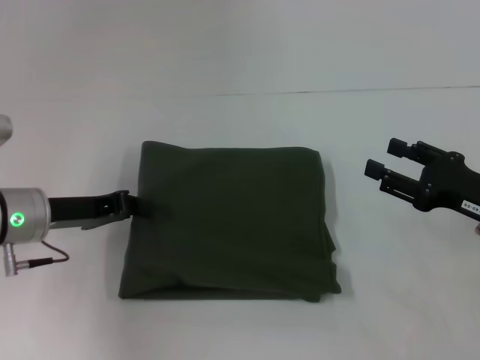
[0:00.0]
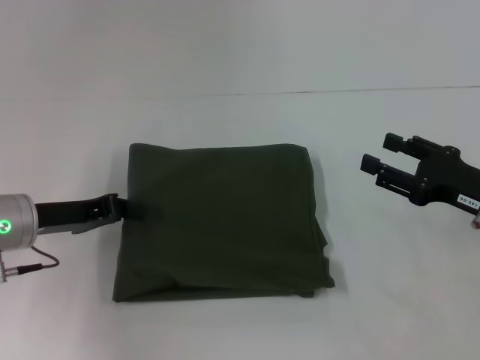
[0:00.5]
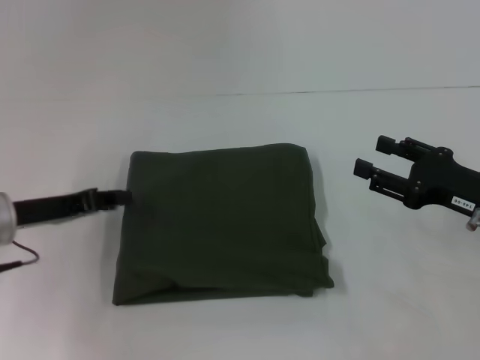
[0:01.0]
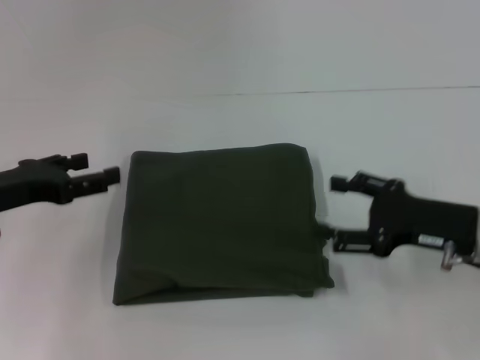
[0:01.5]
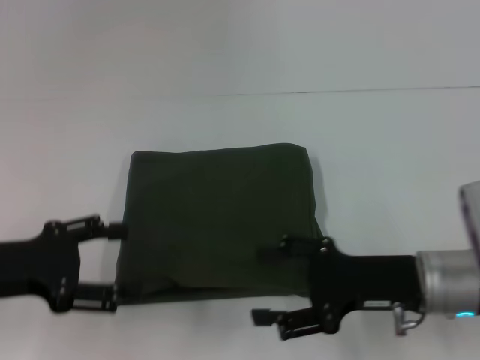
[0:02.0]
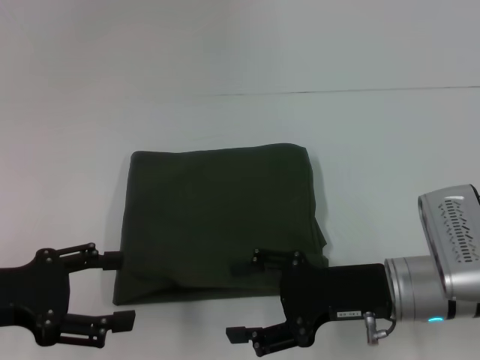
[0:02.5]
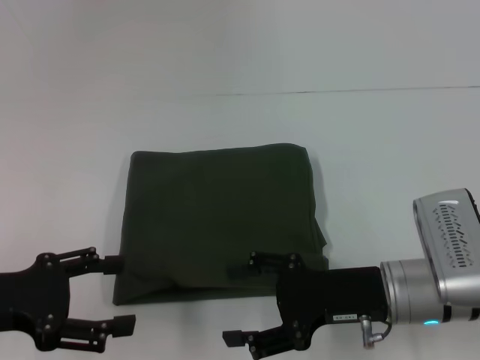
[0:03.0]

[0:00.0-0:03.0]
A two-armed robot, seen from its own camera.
0:00.0 to 0:01.5: The left gripper goes about 5 cm to the left, and opens its fingers.
0:01.5 to 0:03.0: The left gripper heads backward, covering some 10 cm. The right gripper shifts about 10 cm to the left.
